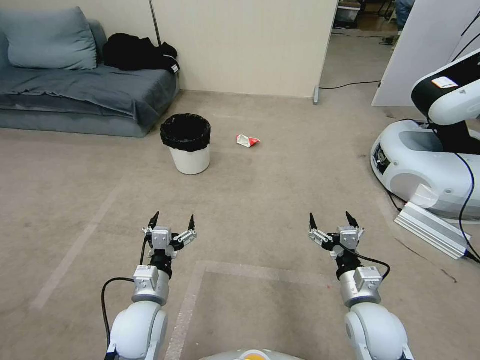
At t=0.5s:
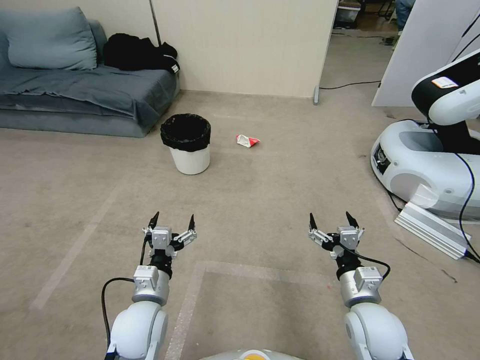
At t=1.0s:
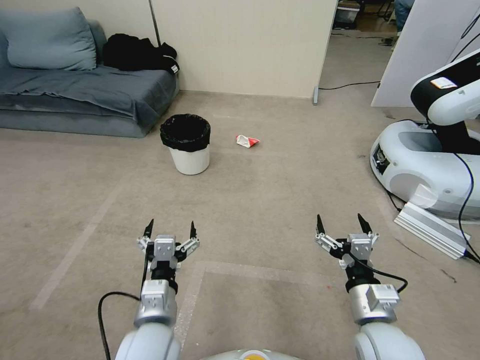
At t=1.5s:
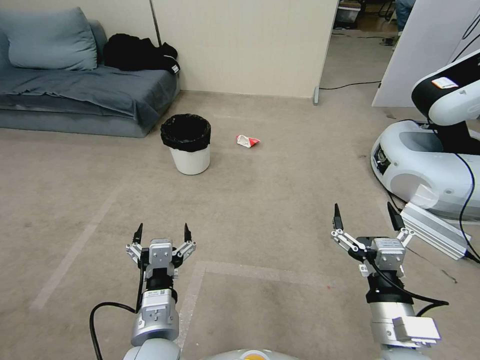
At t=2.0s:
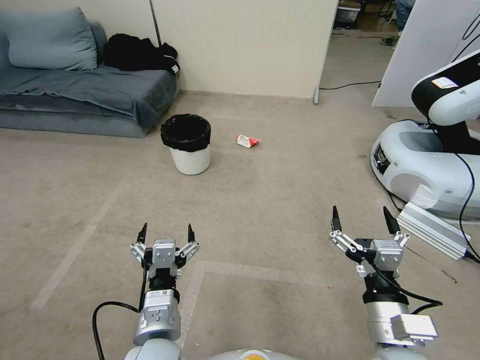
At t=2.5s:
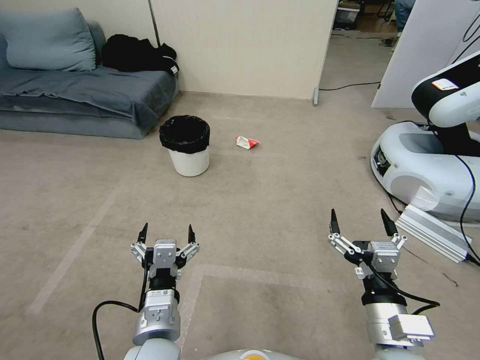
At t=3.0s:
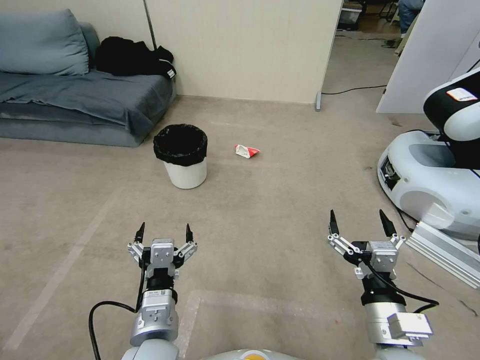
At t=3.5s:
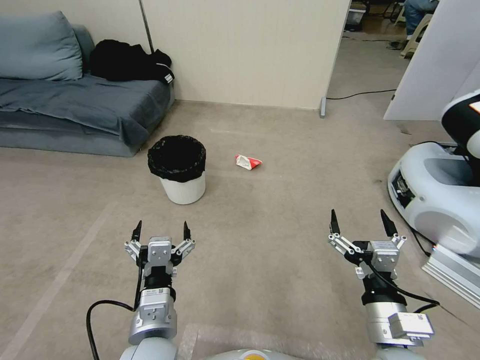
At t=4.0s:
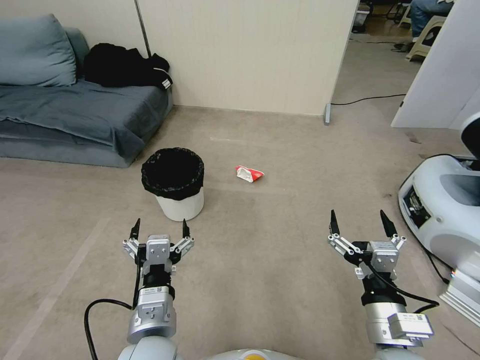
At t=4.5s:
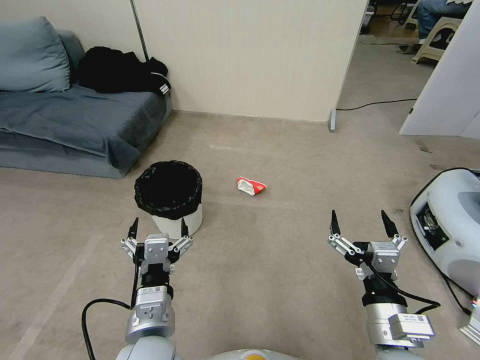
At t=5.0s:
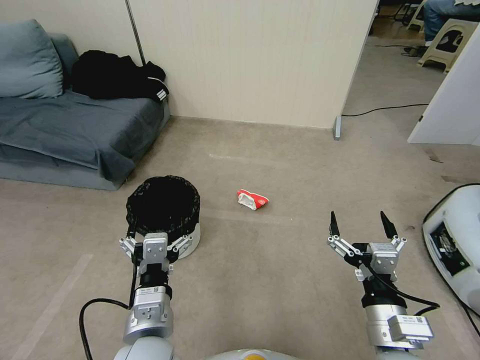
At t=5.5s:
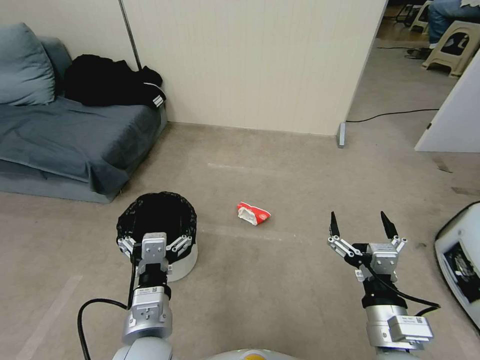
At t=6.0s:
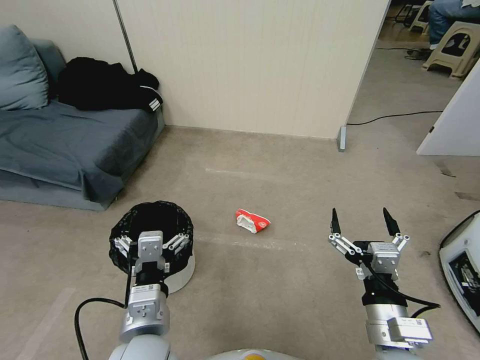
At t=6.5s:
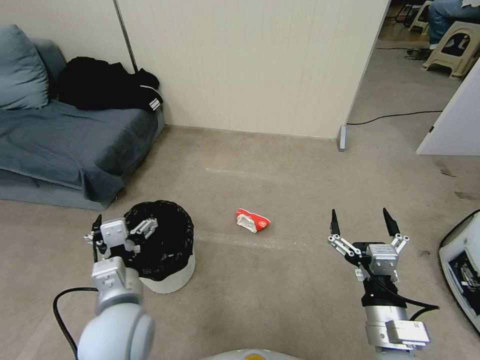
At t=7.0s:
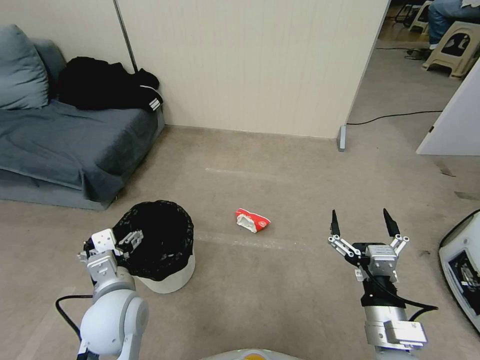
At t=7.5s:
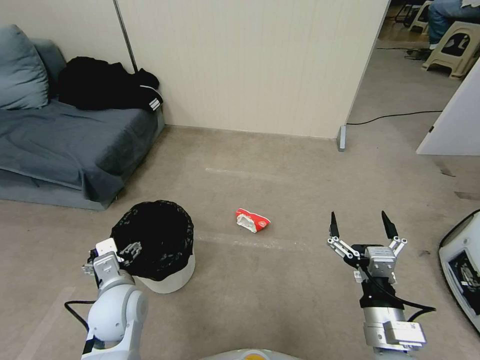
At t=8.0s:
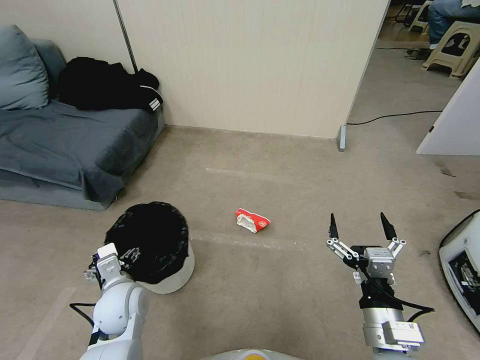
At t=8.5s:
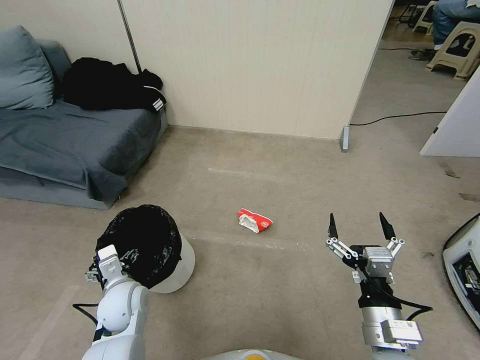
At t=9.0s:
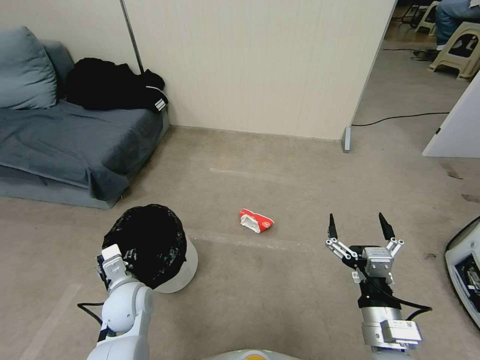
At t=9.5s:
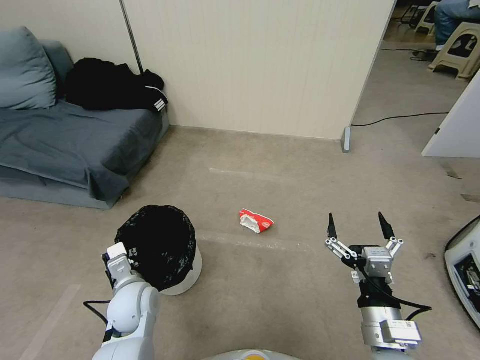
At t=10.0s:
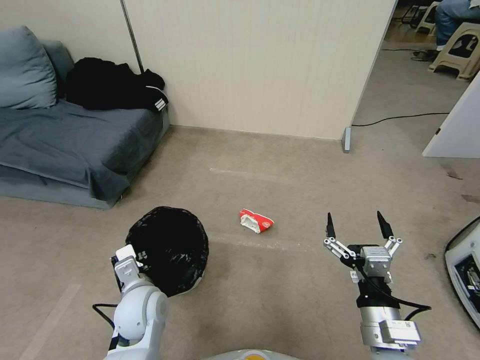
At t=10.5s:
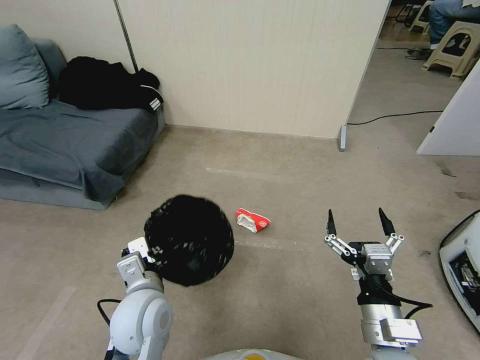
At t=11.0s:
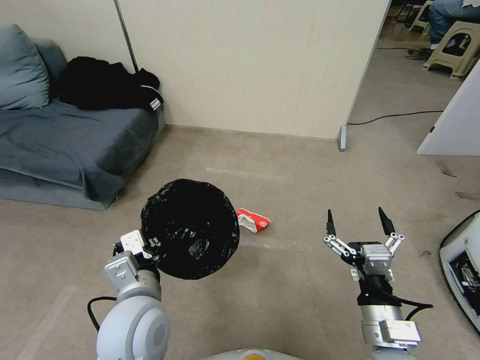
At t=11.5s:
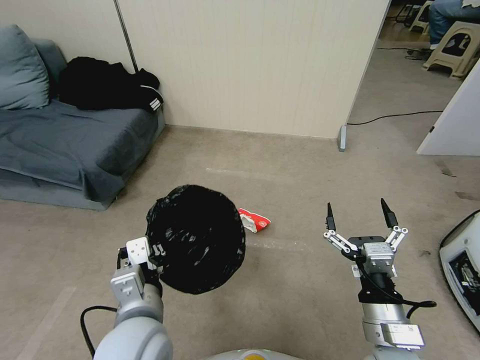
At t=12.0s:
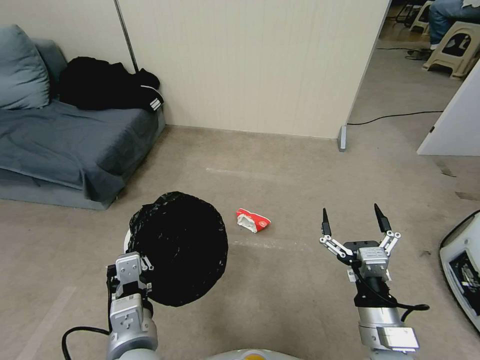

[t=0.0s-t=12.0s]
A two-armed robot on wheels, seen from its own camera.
Task of the whole recording: Pick up the trash bin, then pick up the garbage from the floor and place it into the trash bin.
t=6.0s to t=8.0s: The left gripper heads downward, forward and to the left, covering approximately 20 cm.
t=8.0s to t=10.0s: The left gripper changes place by roughly 5 cm, and closes.
t=10.0s to t=12.0s: The left gripper is displaced backward, upward and to the right by some 15 cm.

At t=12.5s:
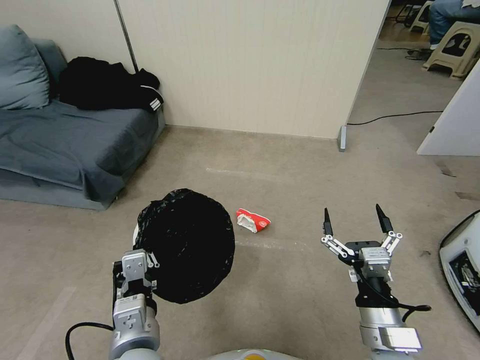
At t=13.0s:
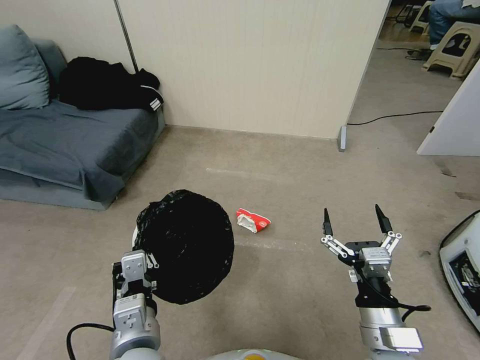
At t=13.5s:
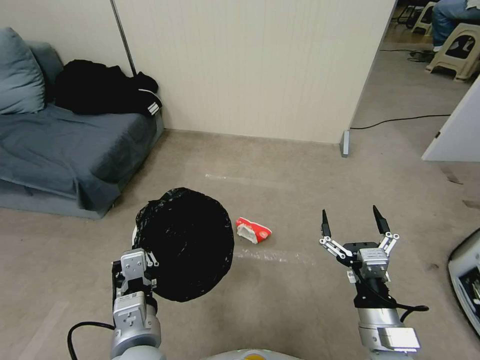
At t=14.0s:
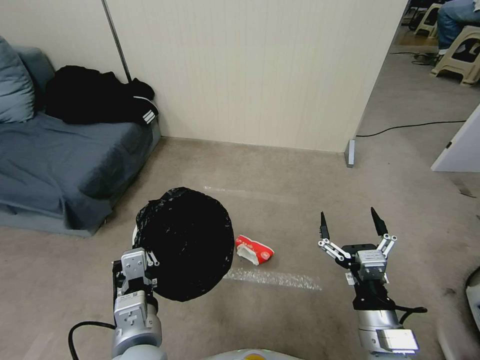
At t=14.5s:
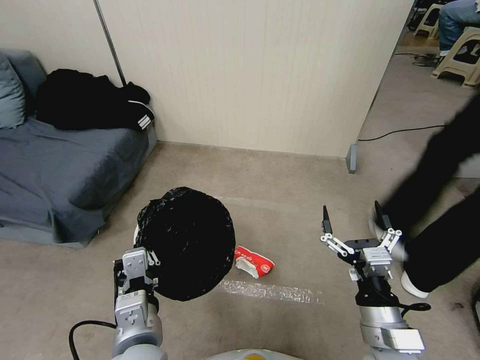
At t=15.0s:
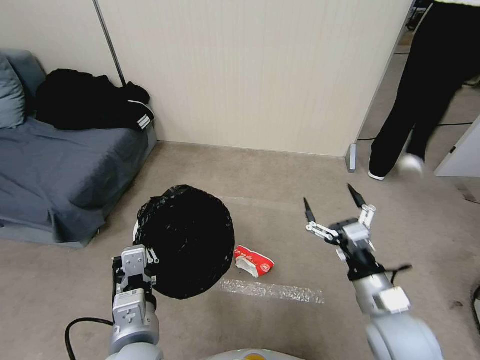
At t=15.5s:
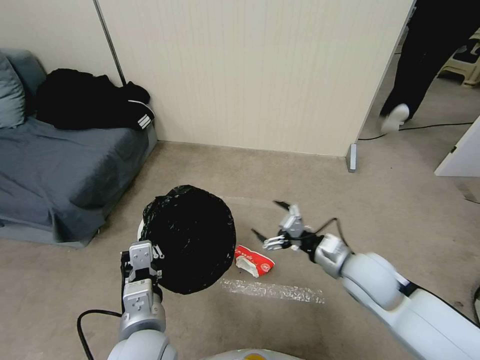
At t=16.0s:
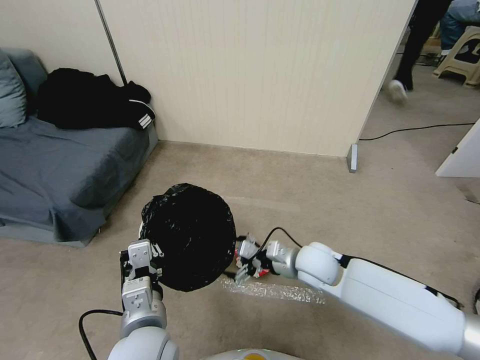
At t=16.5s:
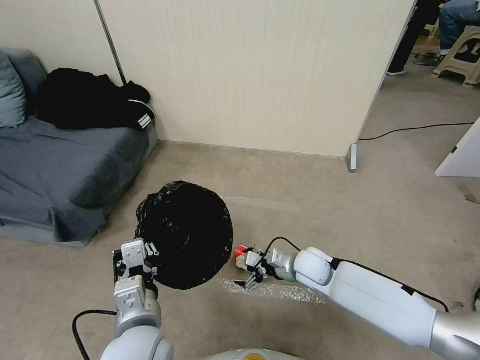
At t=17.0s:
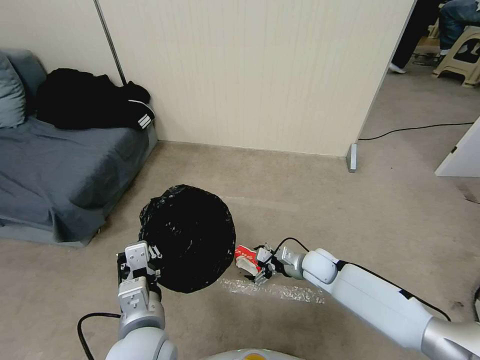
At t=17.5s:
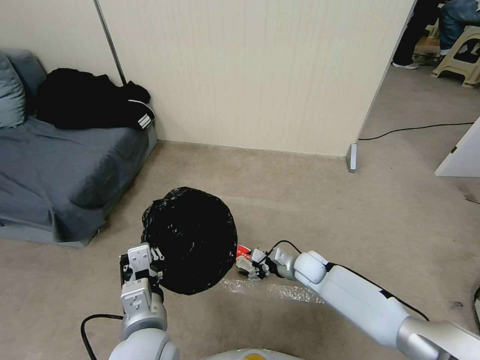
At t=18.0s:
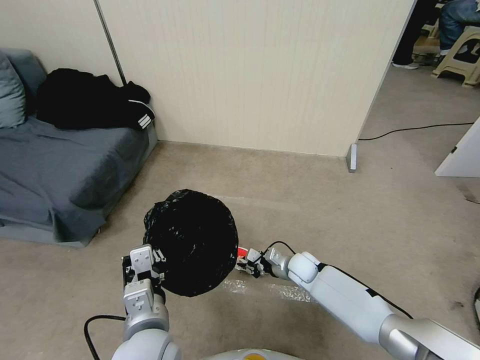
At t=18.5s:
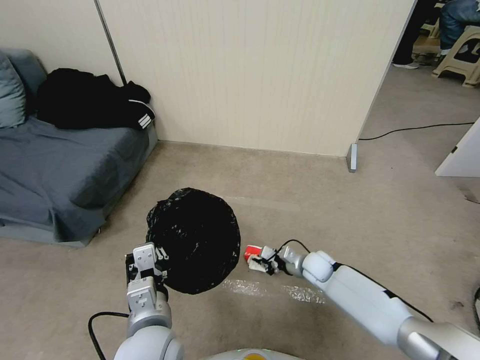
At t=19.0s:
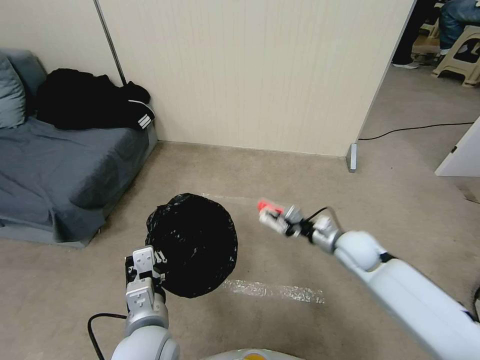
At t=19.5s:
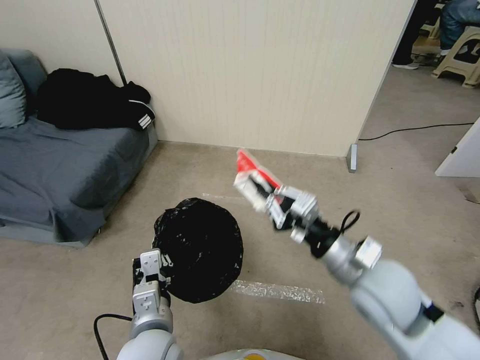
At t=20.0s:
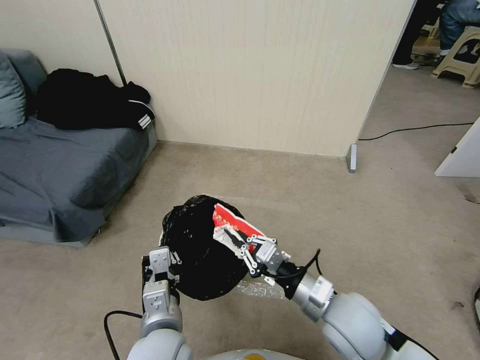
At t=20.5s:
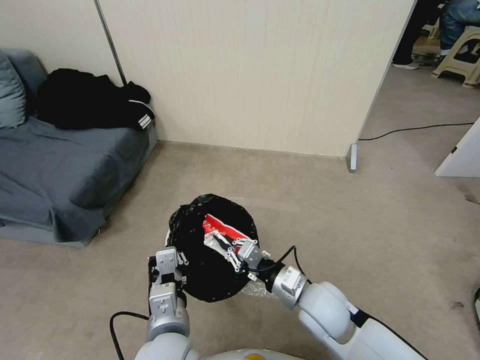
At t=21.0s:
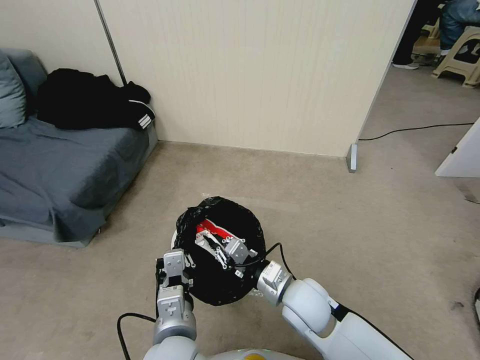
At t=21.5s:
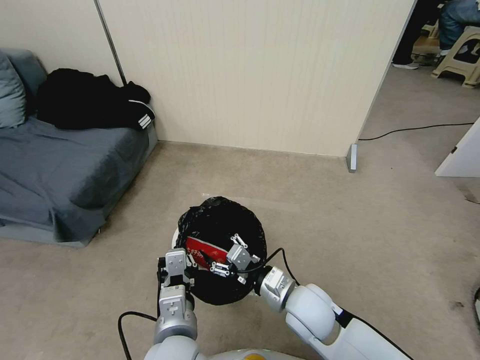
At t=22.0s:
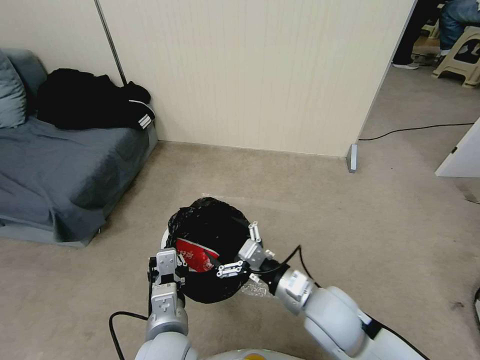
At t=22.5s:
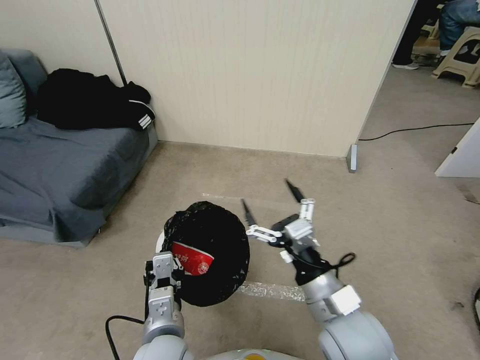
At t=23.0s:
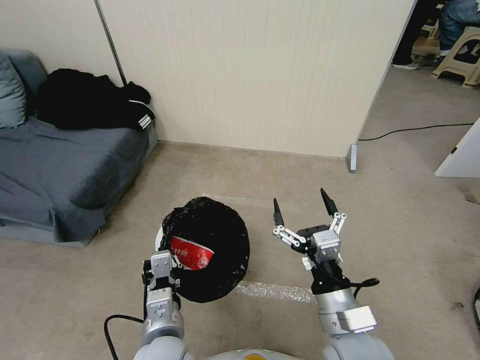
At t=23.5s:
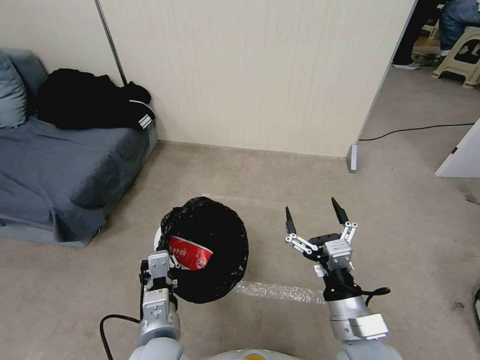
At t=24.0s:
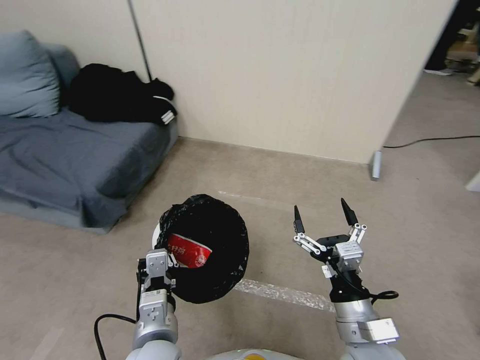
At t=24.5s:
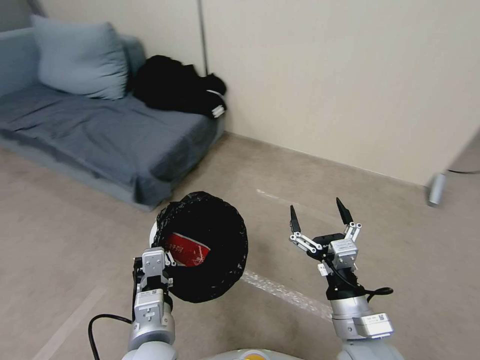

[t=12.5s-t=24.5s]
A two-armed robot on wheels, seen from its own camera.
Task of the whole recording: Pick up the trash bin, then pick up the garbage from the floor and place it into the trash bin.
t=14.5s to t=16.5s: The right gripper moves forward and downward, some 25 cm.
t=16.5s to t=18.5s: The right gripper is displaced downward by some 10 cm, and closes.
t=18.5s to t=20.5s: The right gripper moves upward, backward and to the left, approximately 25 cm.
t=20.5s to t=22.5s: The right gripper moves upward and backward, roughly 10 cm, and opens.
t=22.5s to t=24.5s: The right gripper changes place by about 5 cm.

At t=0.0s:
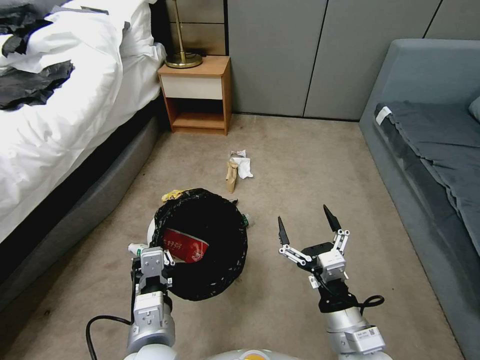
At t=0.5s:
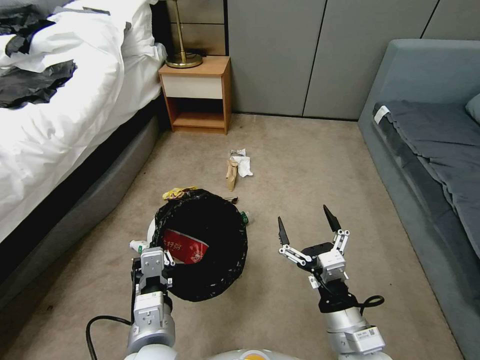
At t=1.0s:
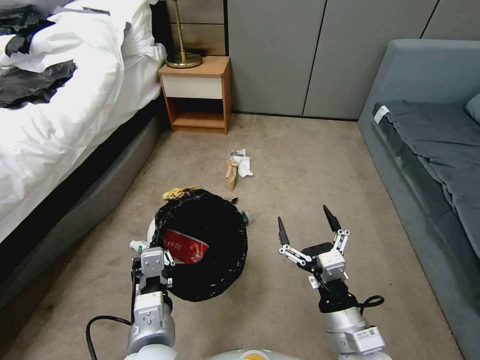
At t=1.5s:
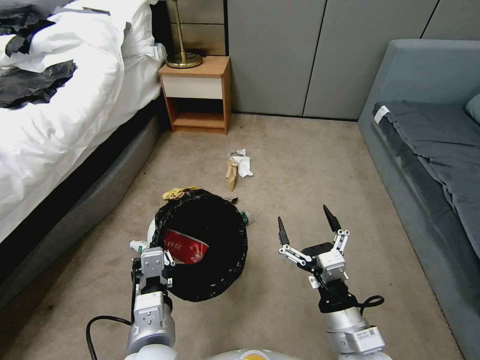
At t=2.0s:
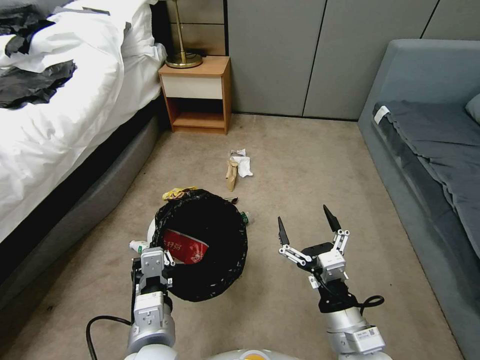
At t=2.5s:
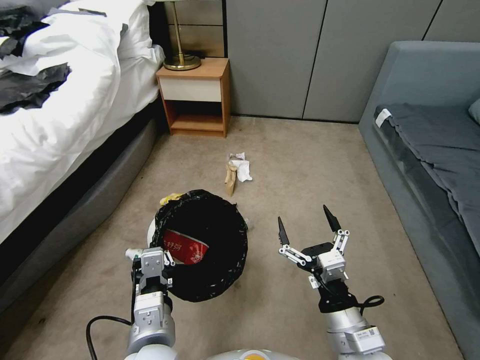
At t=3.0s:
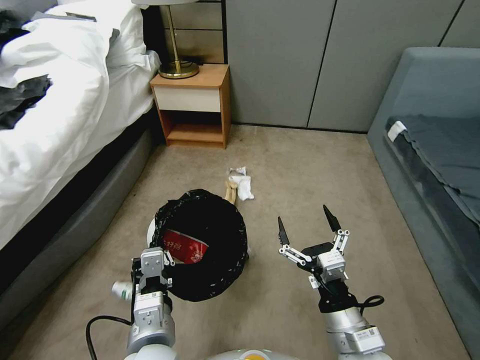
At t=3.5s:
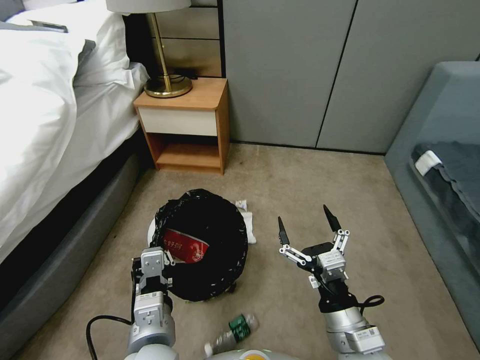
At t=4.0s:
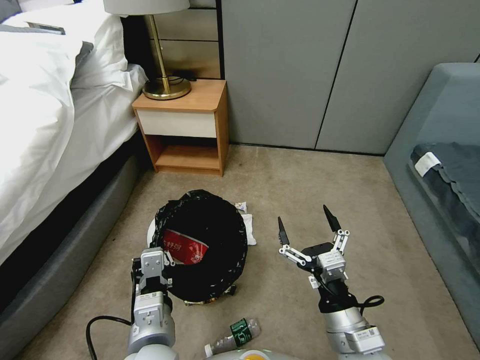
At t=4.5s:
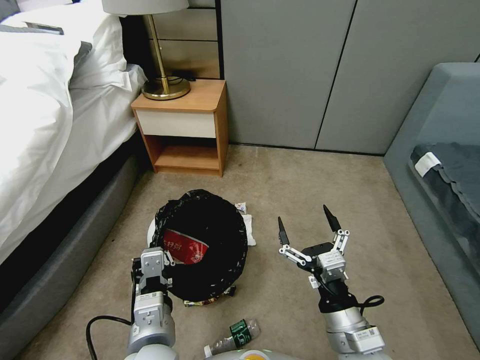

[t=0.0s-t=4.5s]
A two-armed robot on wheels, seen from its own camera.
Task of the whole recording: Pick up the trash bin, then pick up the garbage from the floor and place it into the trash bin.
t=0.0s to t=2.0s: Both grippers stay put.
